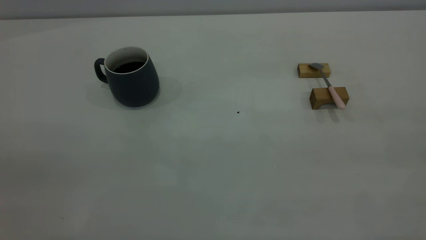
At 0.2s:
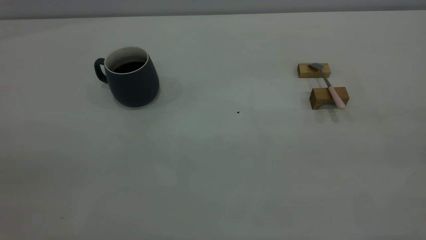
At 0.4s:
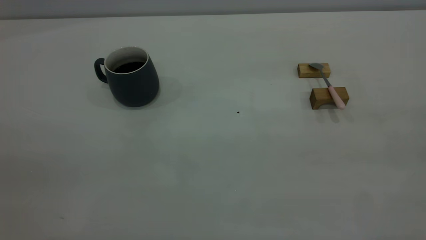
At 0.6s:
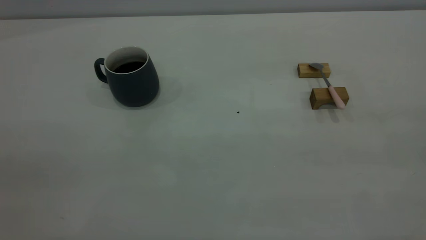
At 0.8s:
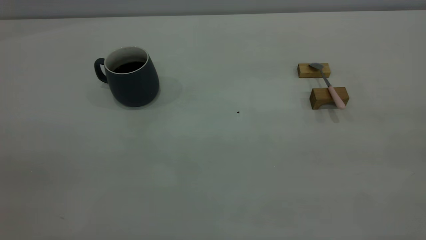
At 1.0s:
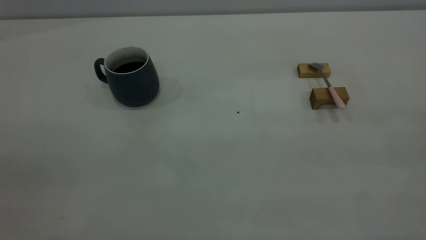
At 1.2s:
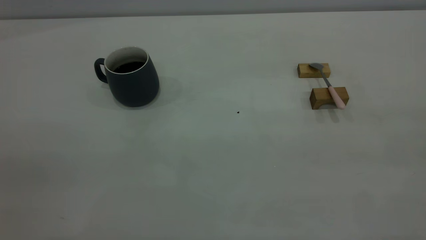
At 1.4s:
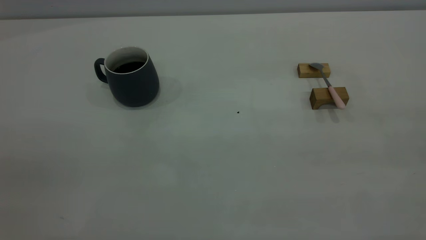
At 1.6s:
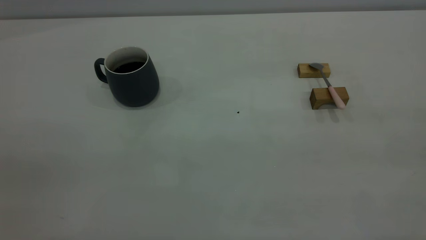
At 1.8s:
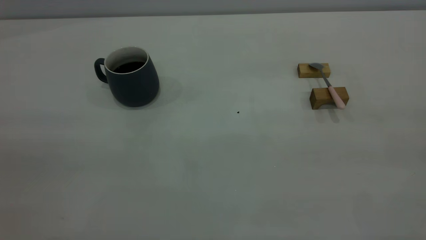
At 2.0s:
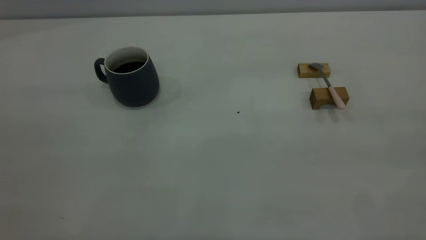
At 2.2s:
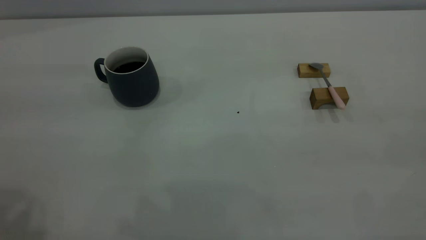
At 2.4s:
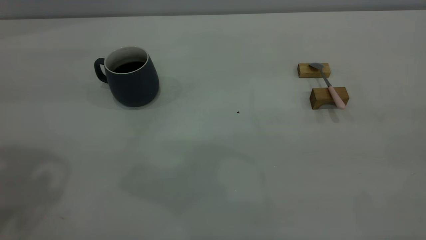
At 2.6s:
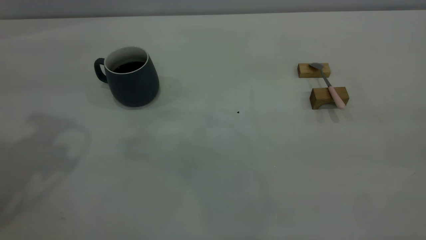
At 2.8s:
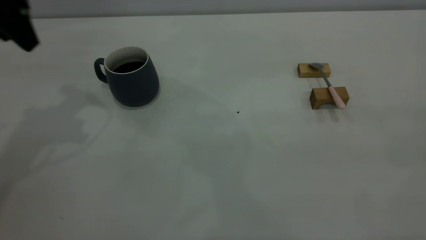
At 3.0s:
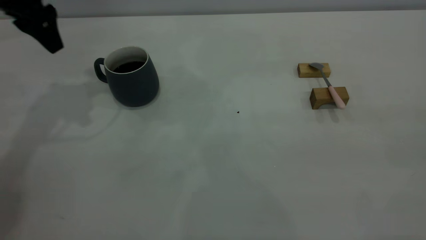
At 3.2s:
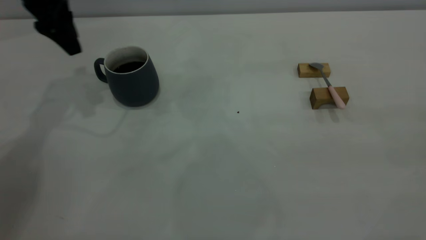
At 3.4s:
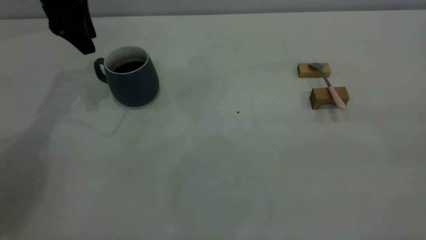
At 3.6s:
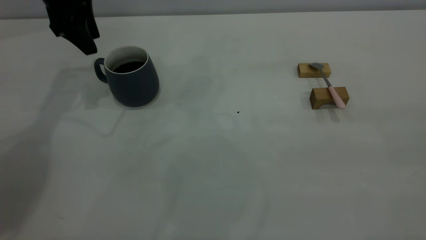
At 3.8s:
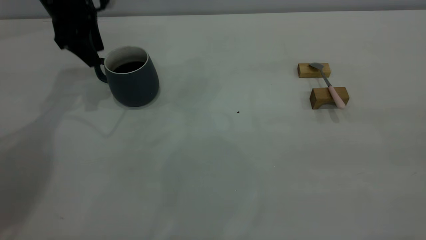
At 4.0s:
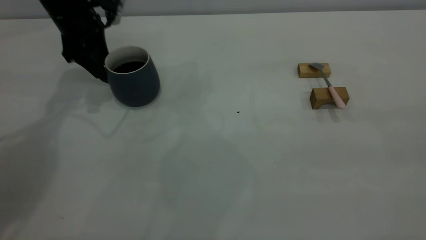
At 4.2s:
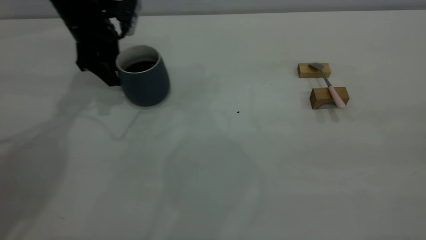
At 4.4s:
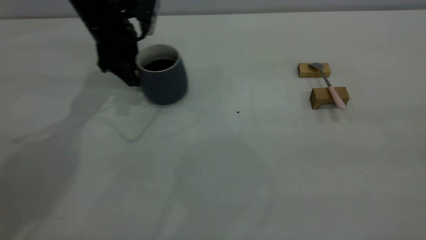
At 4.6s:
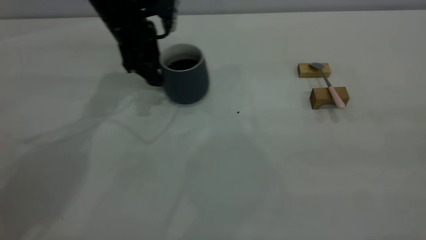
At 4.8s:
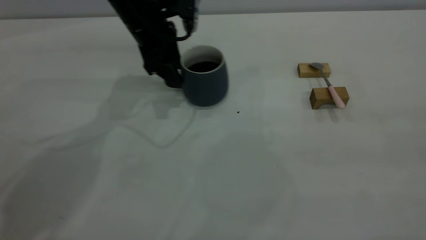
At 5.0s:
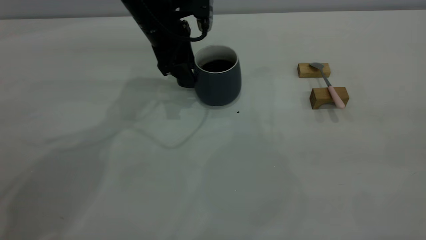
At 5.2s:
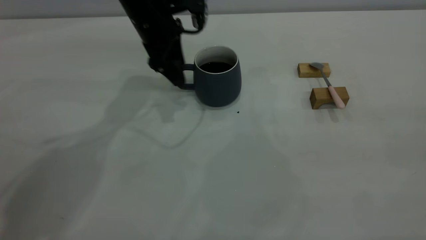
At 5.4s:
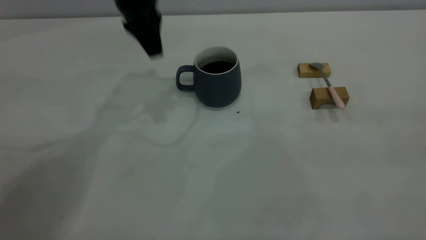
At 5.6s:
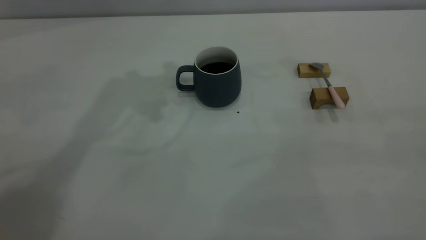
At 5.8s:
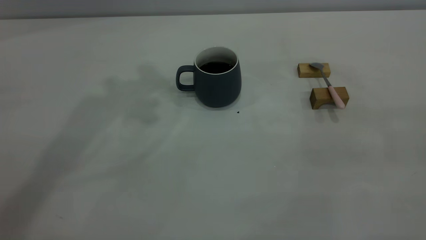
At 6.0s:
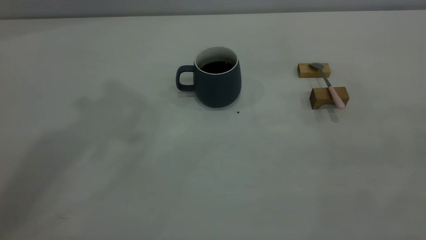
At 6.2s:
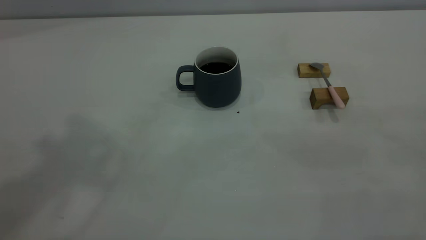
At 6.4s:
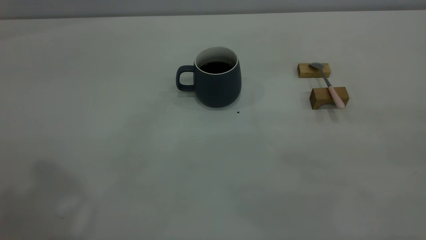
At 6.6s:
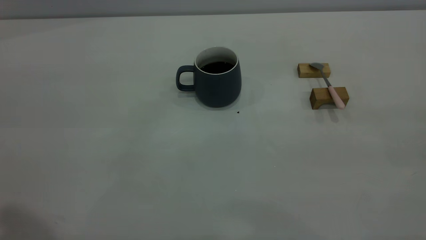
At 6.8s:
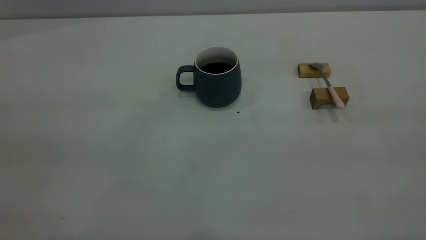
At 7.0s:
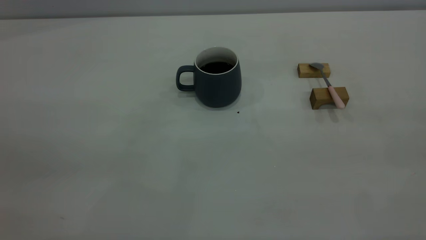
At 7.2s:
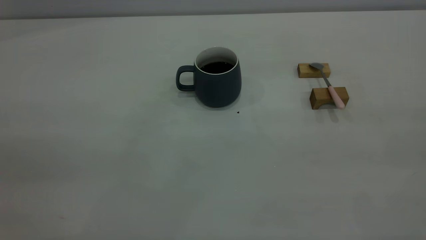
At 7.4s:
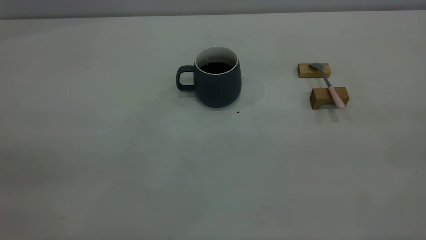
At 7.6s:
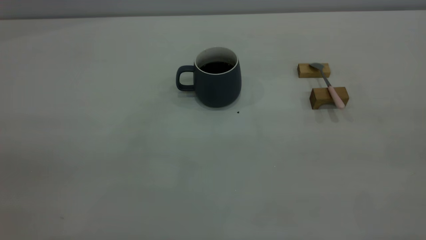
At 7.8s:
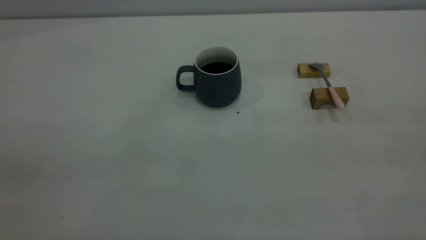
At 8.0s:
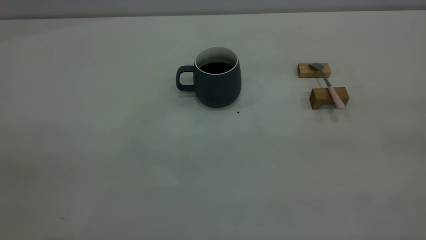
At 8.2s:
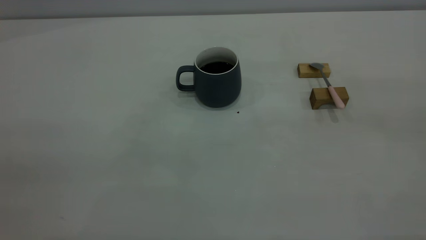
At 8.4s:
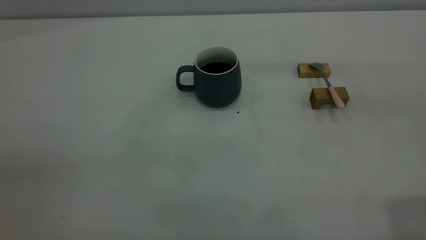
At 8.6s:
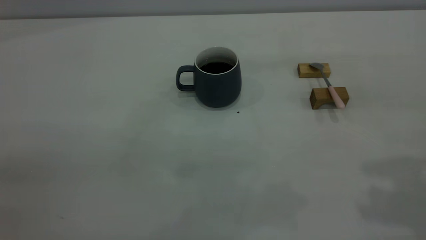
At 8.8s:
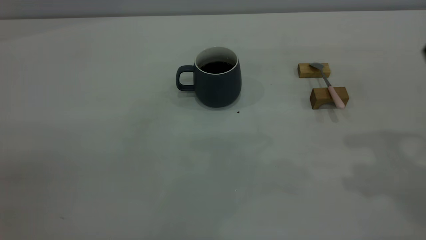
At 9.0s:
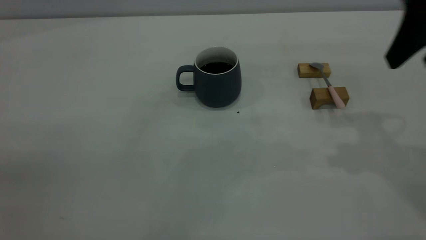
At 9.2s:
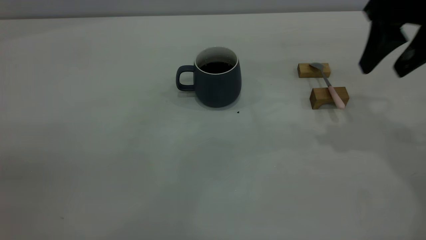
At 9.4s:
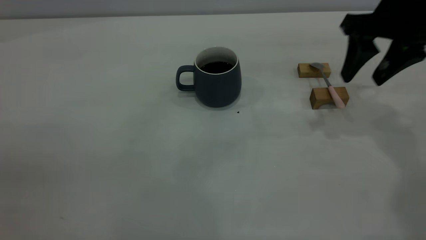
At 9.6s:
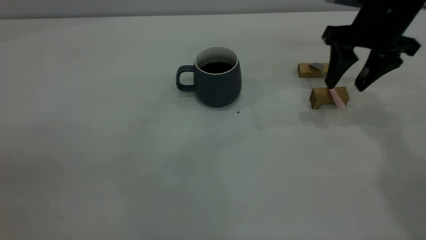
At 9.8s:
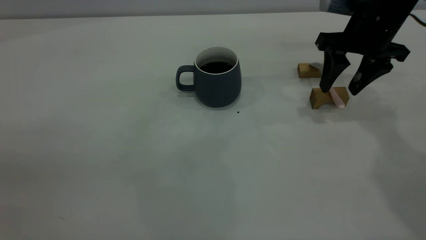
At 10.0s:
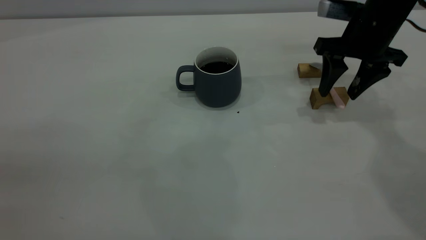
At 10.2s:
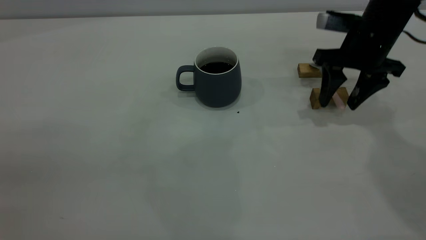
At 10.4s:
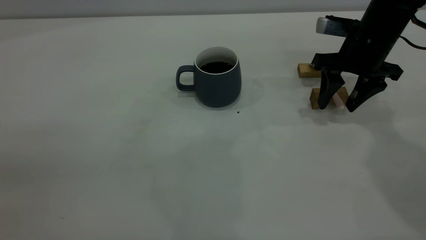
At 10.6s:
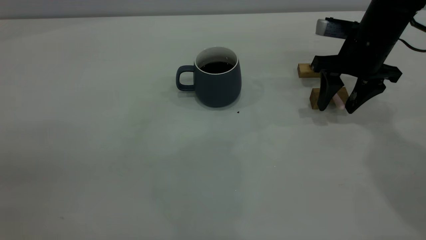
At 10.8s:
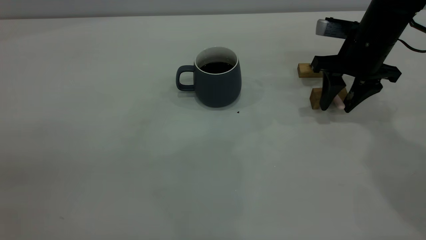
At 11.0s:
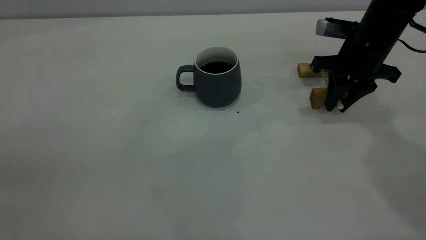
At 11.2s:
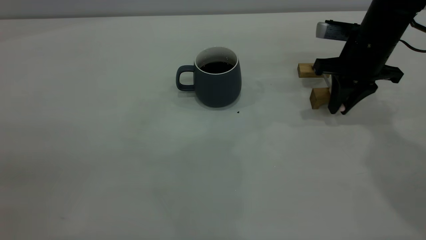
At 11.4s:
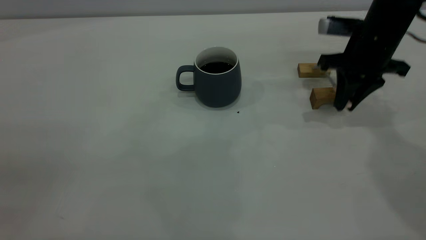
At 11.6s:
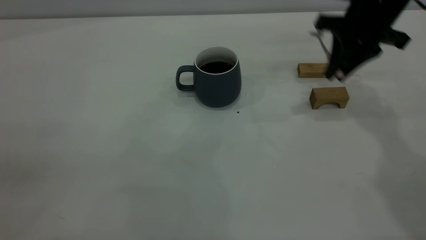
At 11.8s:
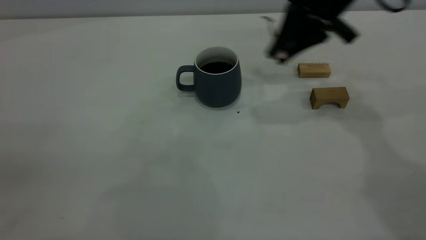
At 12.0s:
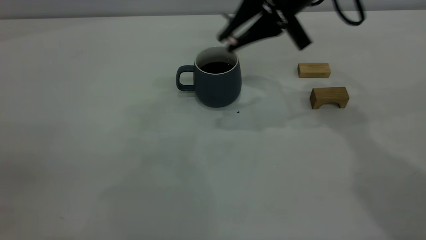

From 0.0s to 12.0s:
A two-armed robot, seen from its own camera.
Step, from 0.0s to 5.2s: Move the cup with coffee to the center of view.
Step, from 5.4s to 11.4s: Pick up the spoon.
From 0.0s to 1.6s: The two grippers keep their place.
From 1.6s to 3.0s: The left gripper moves forward, approximately 40 cm.
From 3.0s to 4.4s: The left gripper heads downward and to the right, covering about 15 cm.
From 4.4s to 6.0s: The left gripper heads upward and backward, covering roughly 40 cm.
From 7.6s to 9.0s: The right gripper is displaced forward by roughly 30 cm, and opens its fingers.
From 9.0s to 10.4s: The right gripper travels downward and forward by some 20 cm.
From 10.4s to 12.0s: The right gripper heads to the left and upward, covering roughly 15 cm, and closes.

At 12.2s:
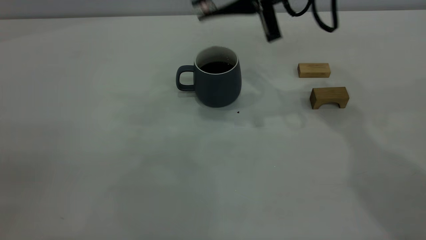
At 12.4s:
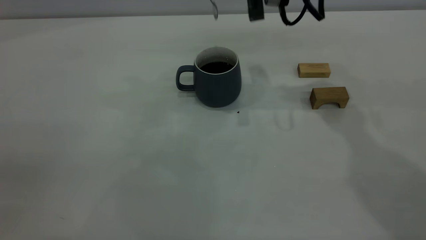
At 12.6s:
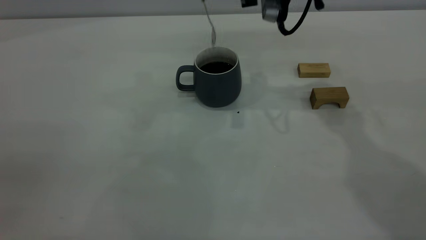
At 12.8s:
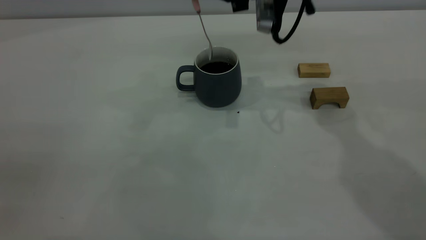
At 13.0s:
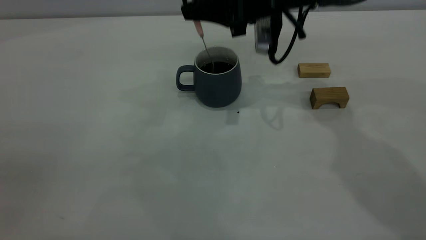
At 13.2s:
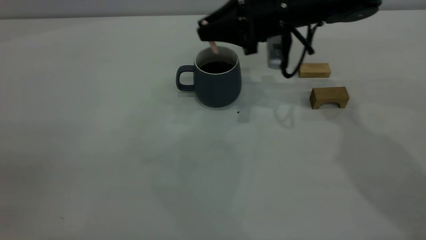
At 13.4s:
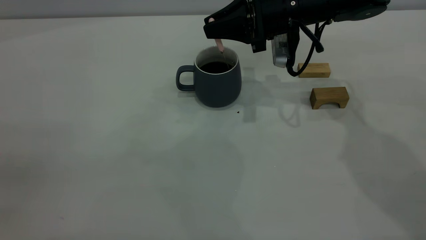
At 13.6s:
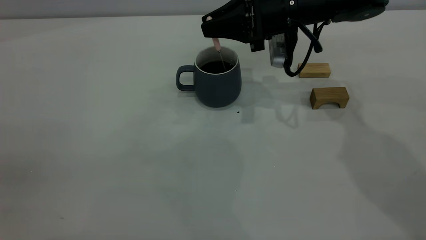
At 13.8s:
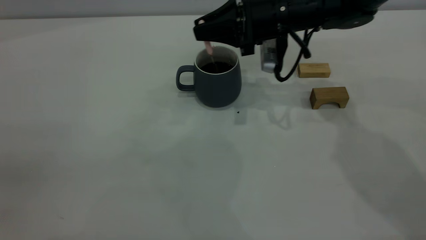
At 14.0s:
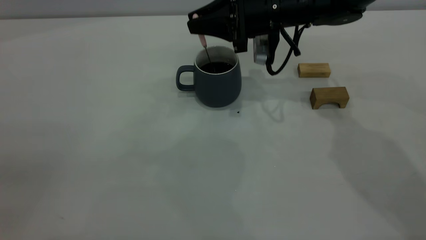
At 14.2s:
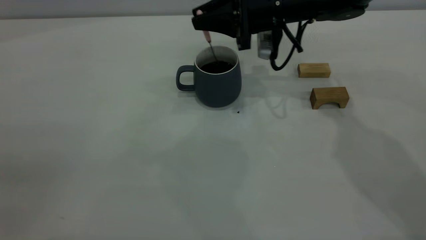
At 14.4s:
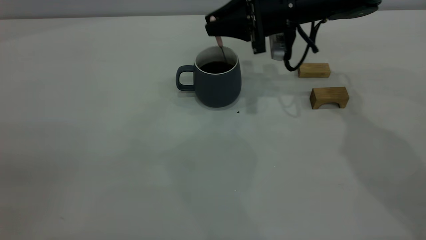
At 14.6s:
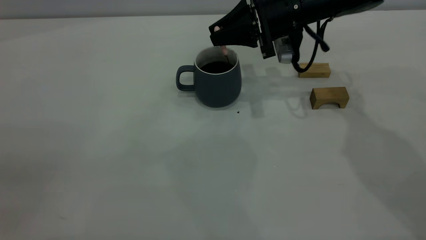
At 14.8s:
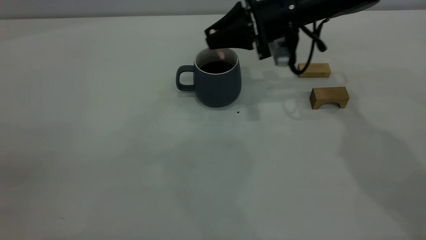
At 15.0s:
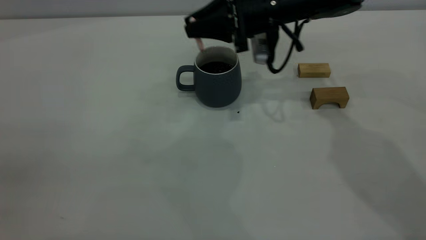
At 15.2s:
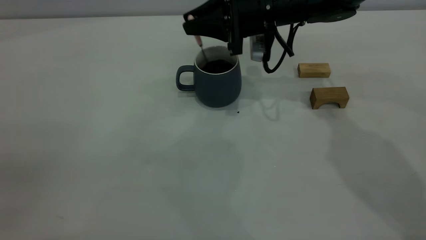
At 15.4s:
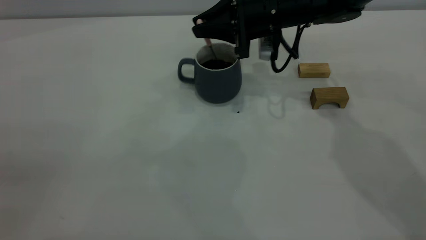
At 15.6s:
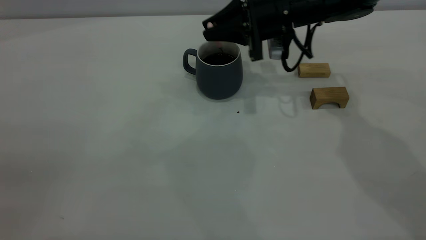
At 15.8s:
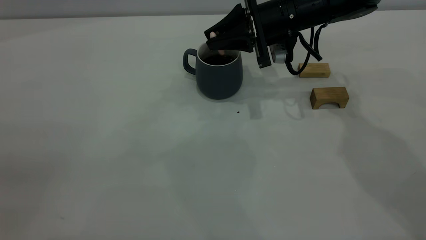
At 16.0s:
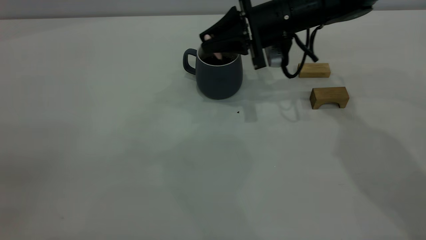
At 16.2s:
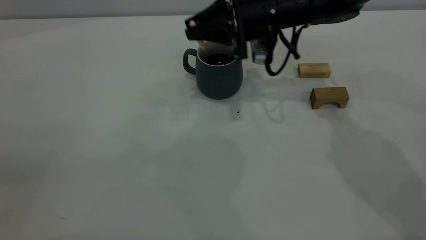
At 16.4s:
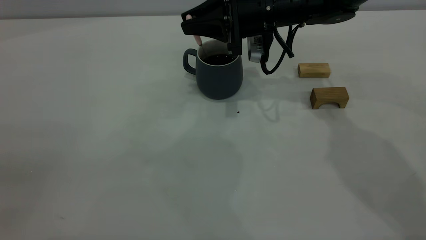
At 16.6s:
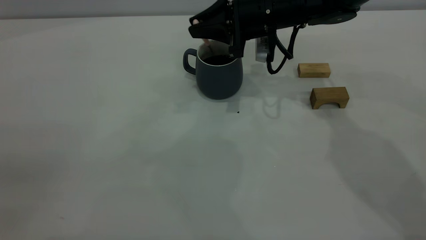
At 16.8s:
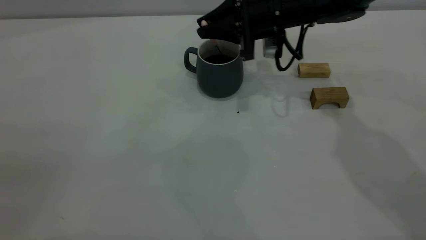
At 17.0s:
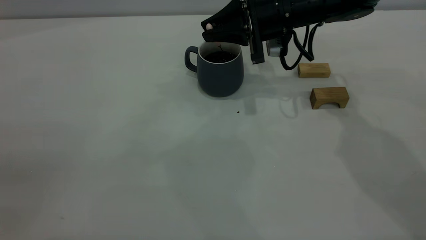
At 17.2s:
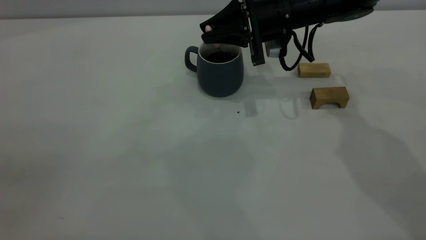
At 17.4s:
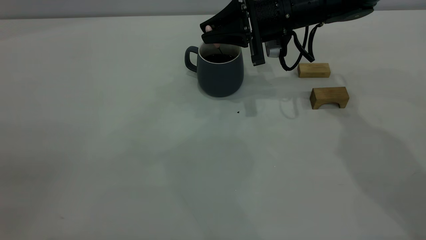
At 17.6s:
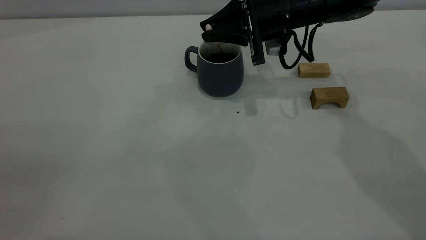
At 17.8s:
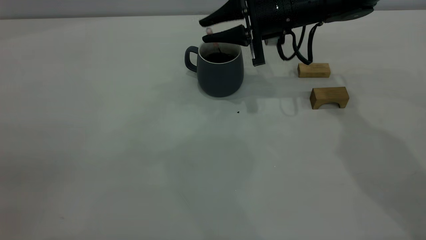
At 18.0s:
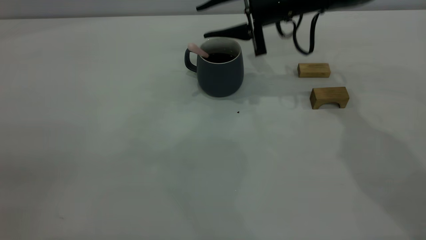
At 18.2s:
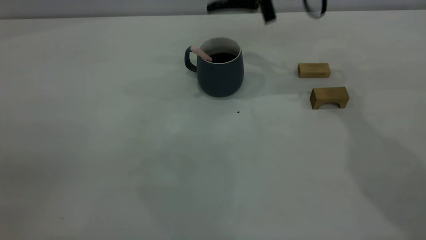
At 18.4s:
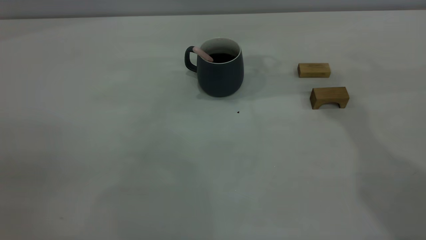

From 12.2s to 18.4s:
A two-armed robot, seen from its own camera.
Step, from 12.2s to 18.0s: Stir the coffee in the cup.
From 12.2s to 13.8s: The right gripper goes approximately 10 cm downward.
From 13.8s to 15.4s: The grippers move only a little.
From 15.4s to 16.8s: The grippers move only a little.
From 16.8s to 18.4s: The right gripper heads upward, covering approximately 20 cm, and opens, then closes again.
